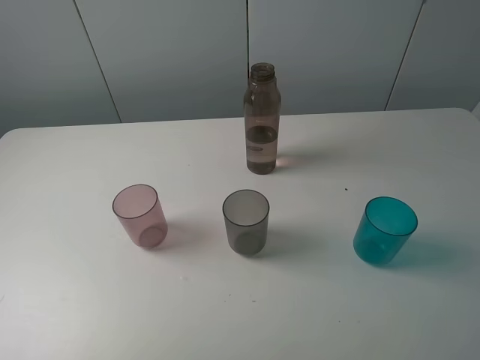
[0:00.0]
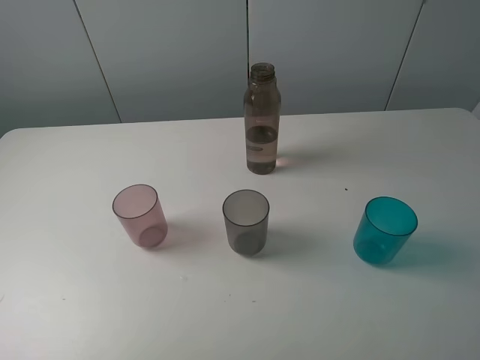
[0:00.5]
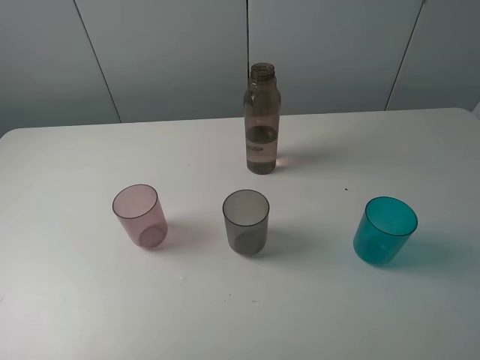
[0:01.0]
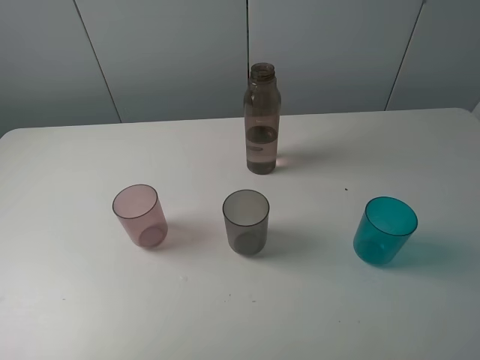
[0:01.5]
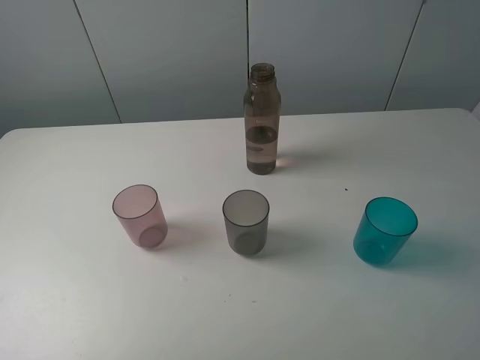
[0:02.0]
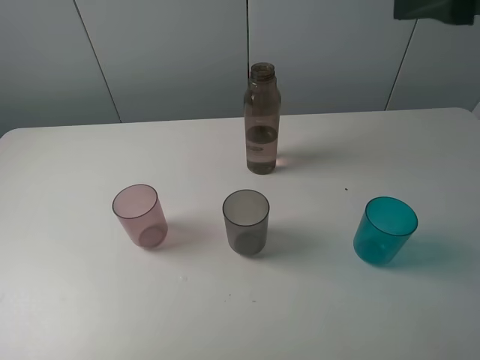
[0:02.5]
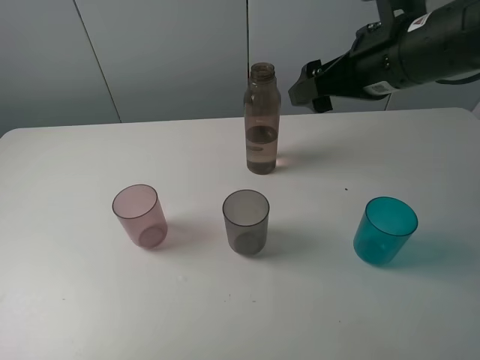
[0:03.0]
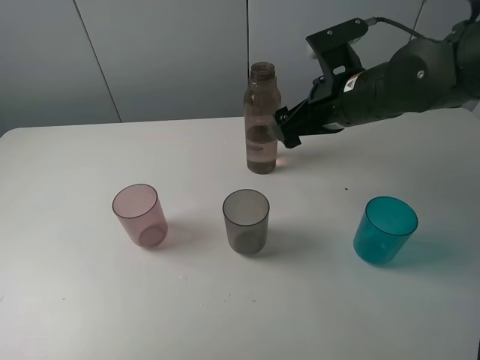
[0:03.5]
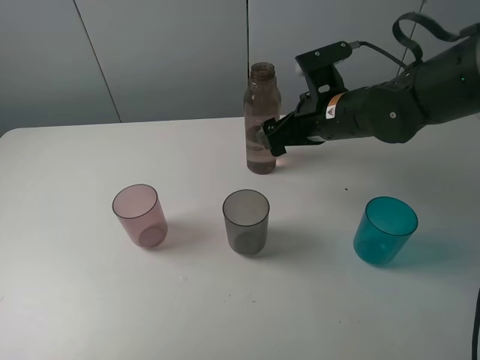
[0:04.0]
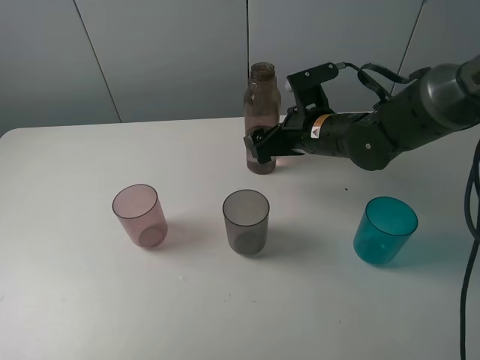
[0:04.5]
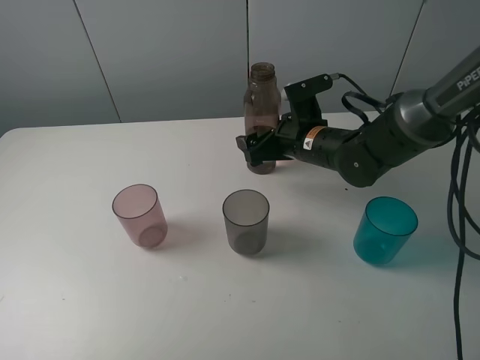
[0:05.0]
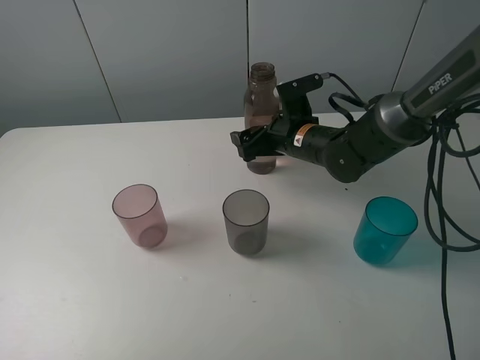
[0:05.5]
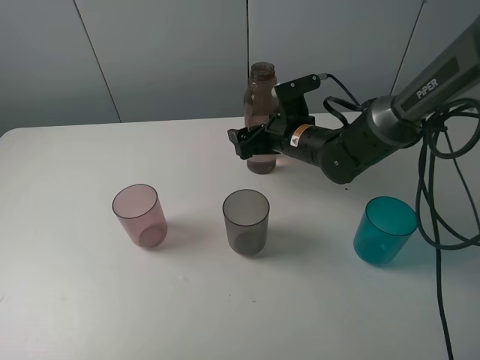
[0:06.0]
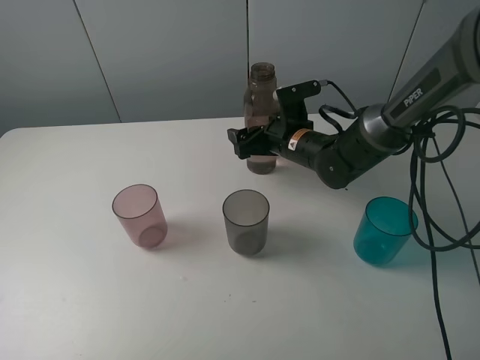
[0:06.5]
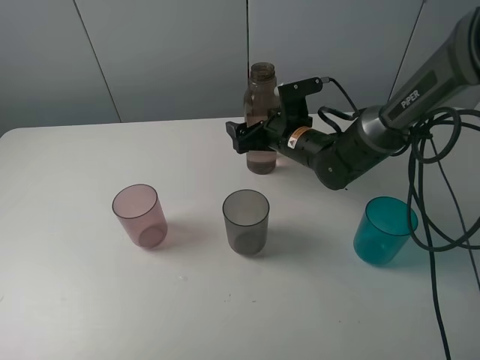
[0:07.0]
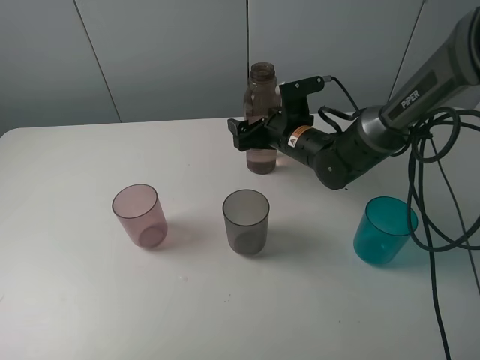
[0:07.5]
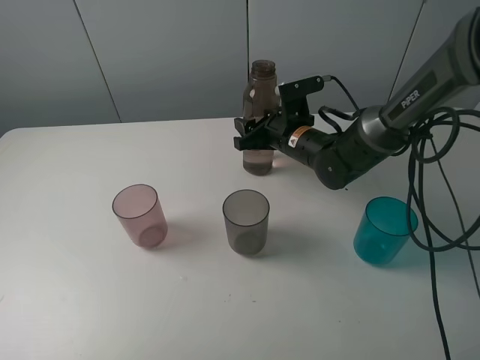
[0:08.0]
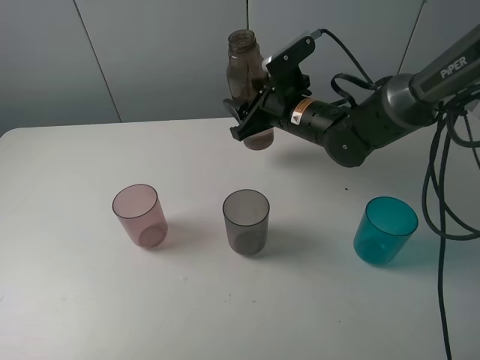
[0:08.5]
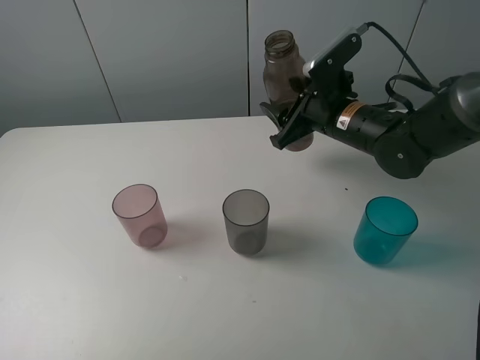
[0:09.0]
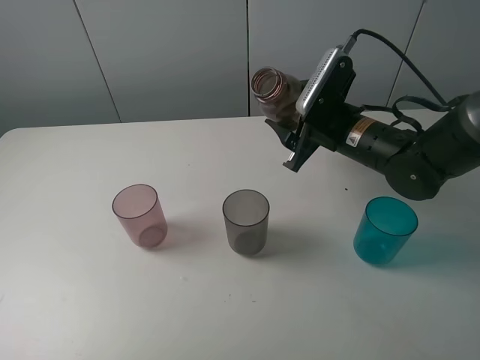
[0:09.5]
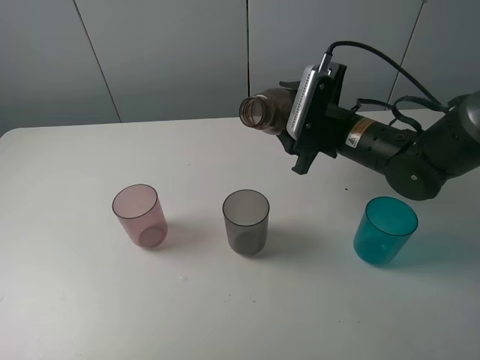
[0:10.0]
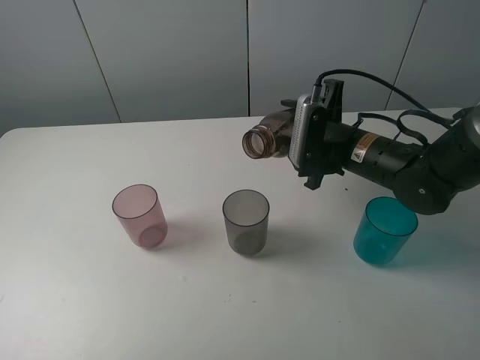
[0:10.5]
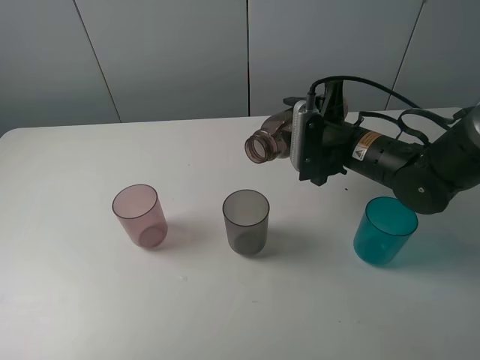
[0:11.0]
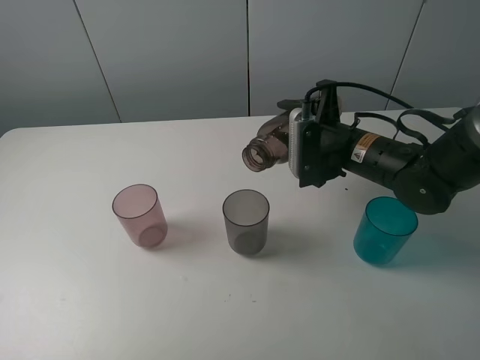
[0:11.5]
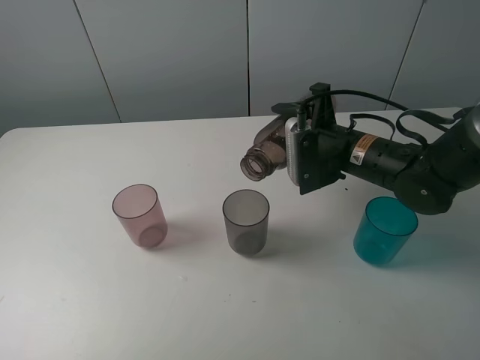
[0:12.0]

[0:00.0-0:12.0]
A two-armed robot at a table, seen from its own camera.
Task of the whole recording: pick up the bottle filled with water and pour water into the middle cup of the three cups.
Step, 0:00.0 to 0:08.0: Grasp the brown bottle with the right gripper.
Step, 0:08.5 to 0:12.0: Pour water from transparent bottle to grey cup with the right gripper.
0:02.0 to 0:04.0: The right gripper is displaced forward, downward and to the left by approximately 35 cm.
0:04.0 to 0:06.0: The right gripper is displaced downward by about 5 cm.
0:06.0 to 0:08.0: The right gripper closes.
0:08.0 to 0:10.0: The right gripper is displaced backward, upward and to the right by approximately 10 cm.

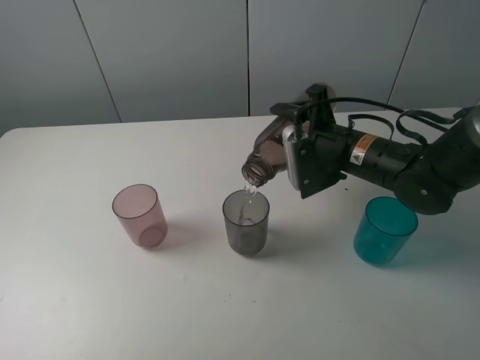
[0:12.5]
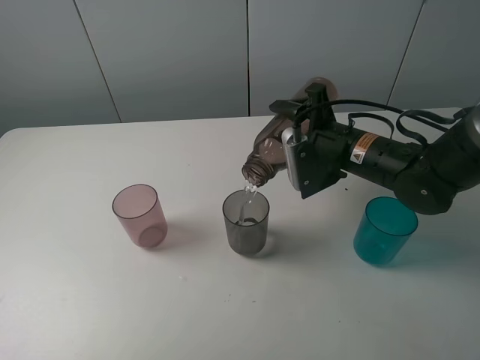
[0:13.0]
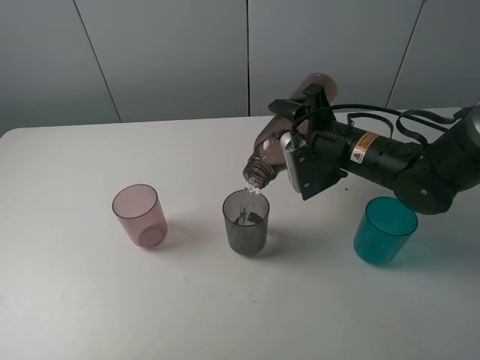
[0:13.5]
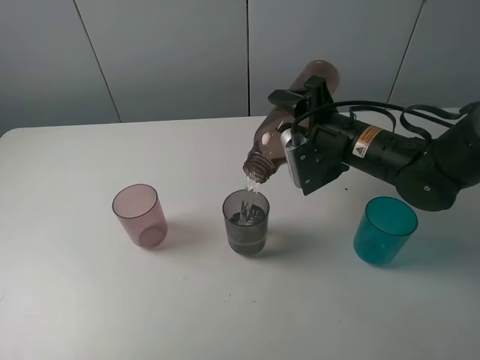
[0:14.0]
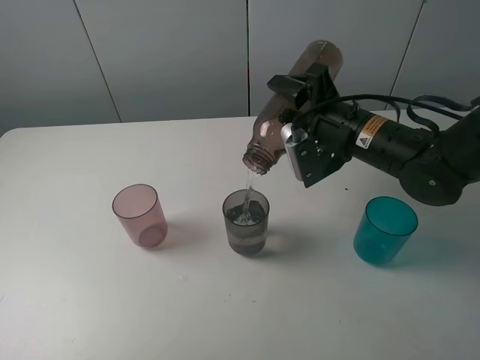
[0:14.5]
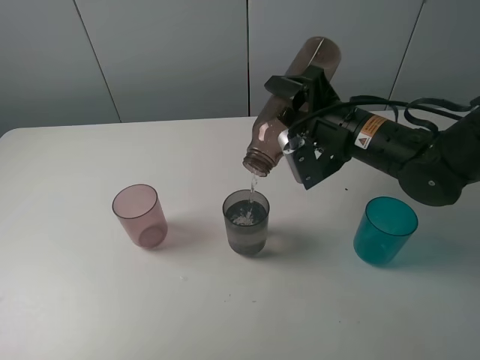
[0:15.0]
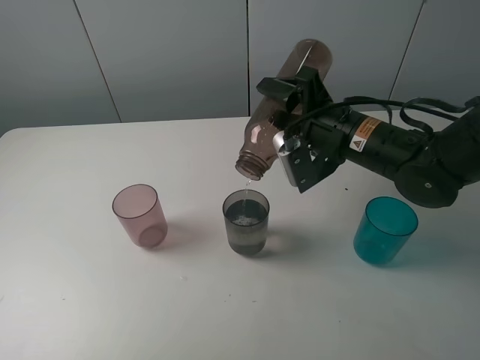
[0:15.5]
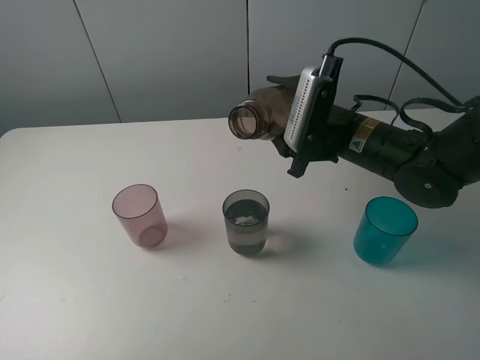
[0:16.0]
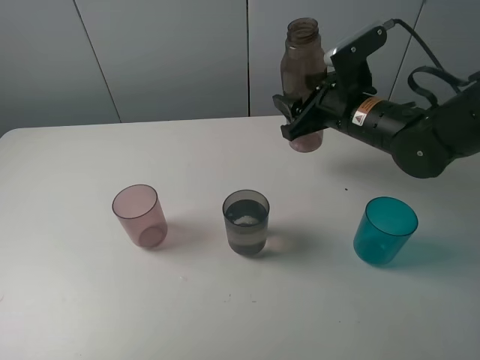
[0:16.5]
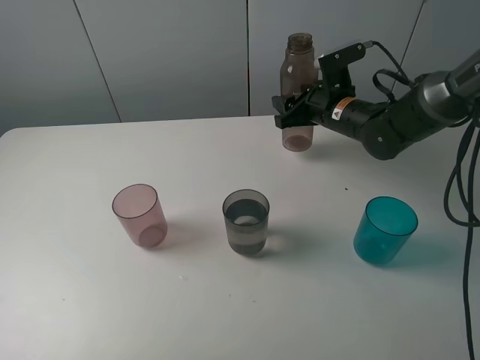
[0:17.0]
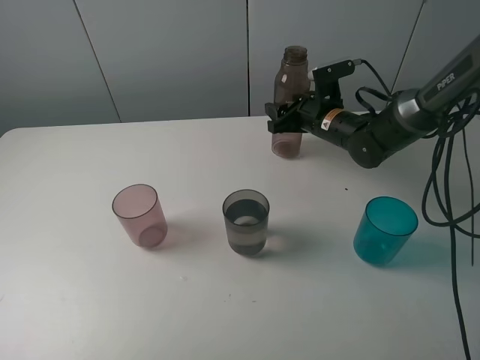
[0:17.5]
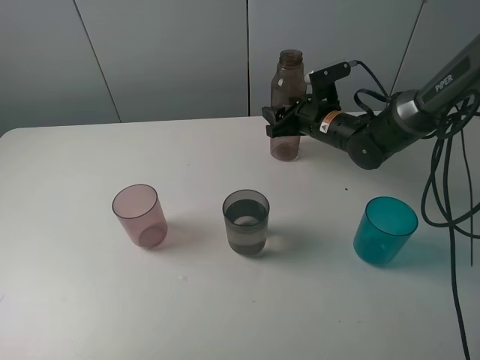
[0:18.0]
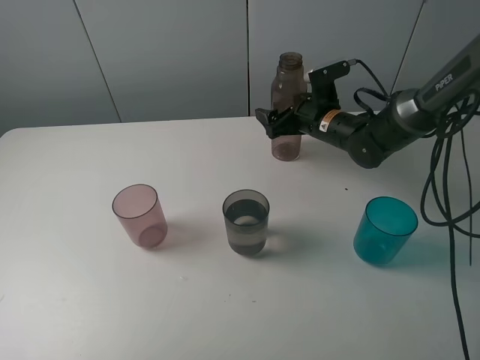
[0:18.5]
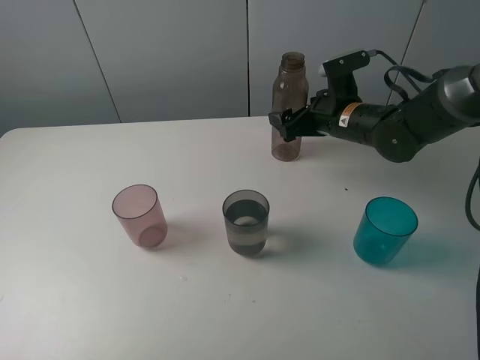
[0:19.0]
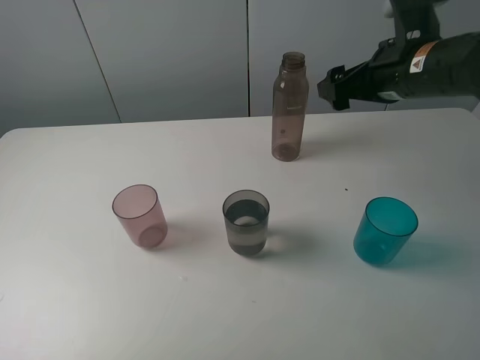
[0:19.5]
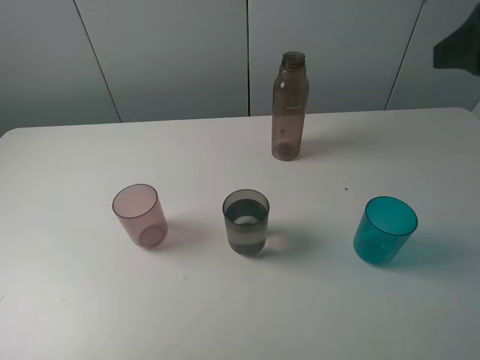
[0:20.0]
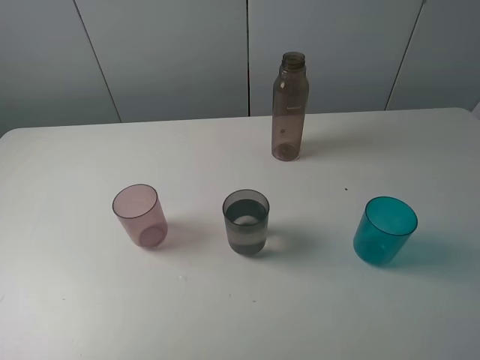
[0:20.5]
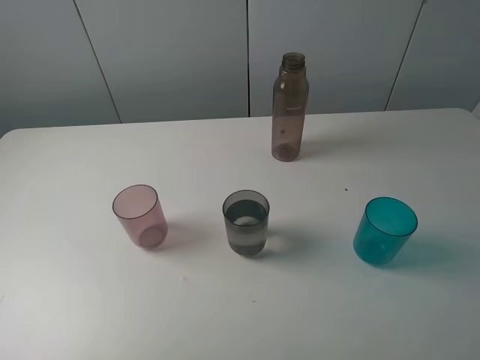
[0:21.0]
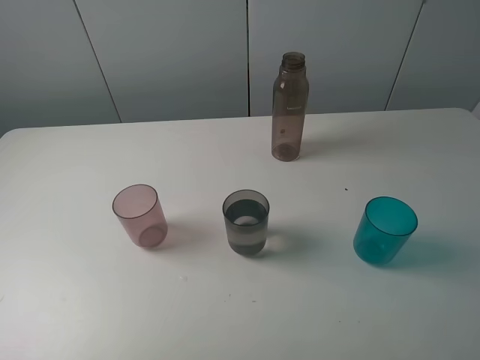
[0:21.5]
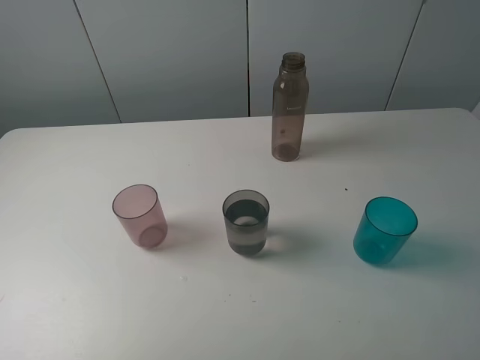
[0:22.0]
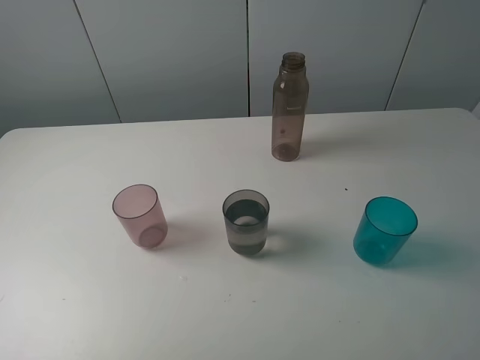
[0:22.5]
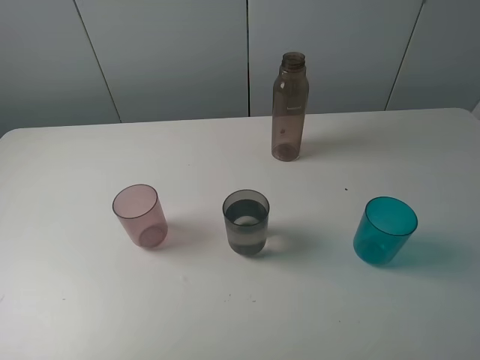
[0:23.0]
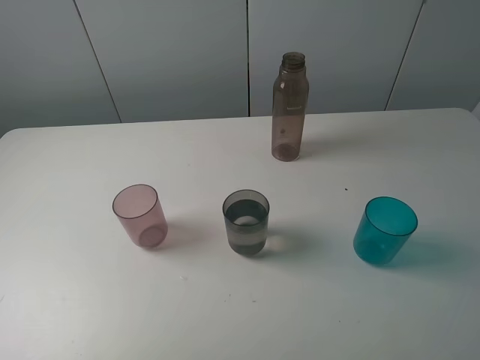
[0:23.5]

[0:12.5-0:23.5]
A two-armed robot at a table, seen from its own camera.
Task of the whole recording: pick up the bottle filled with water and pour water into the middle cup of the three cups.
Step, 0:12.5 to 0:19.0: Place the brown bottle with the right gripper.
0:12.5 to 0:14.5: There are only small adjustments of the grippers.
0:16.0 to 0:18.0: The right gripper heads forward and downward, covering about 15 cm.
0:18.0 to 0:20.0: The right gripper travels upward, backward and to the right by some 35 cm, and opens.
0:20.0 to 0:21.5: The right gripper moves backward, roughly 15 cm.
